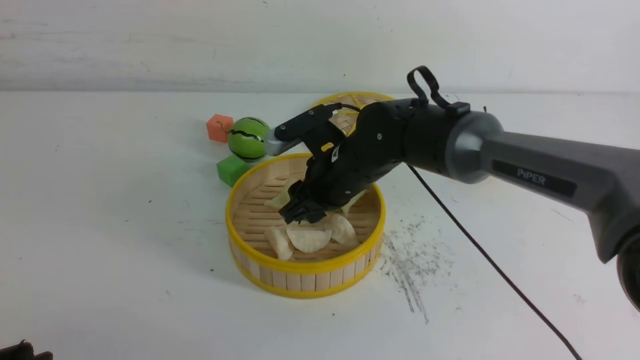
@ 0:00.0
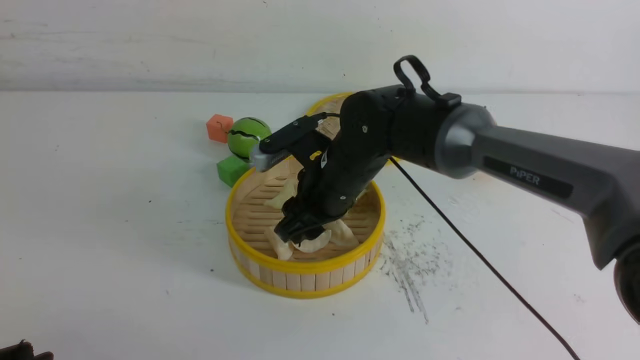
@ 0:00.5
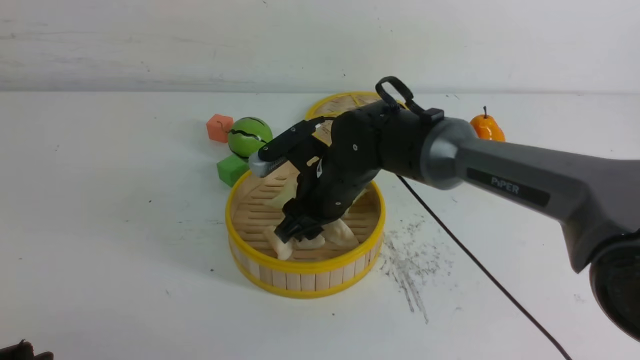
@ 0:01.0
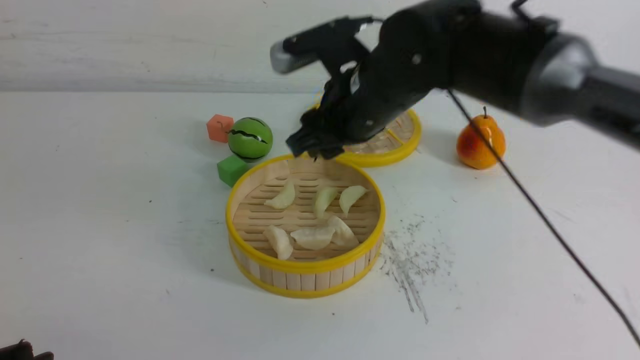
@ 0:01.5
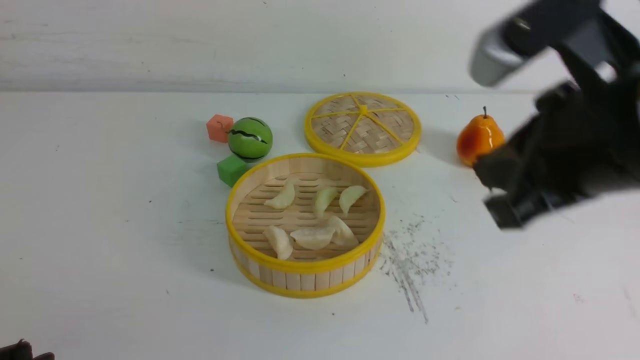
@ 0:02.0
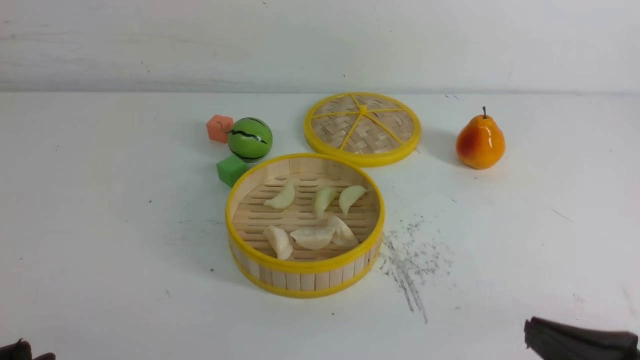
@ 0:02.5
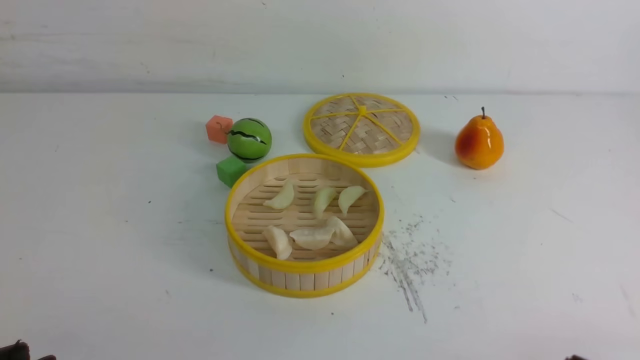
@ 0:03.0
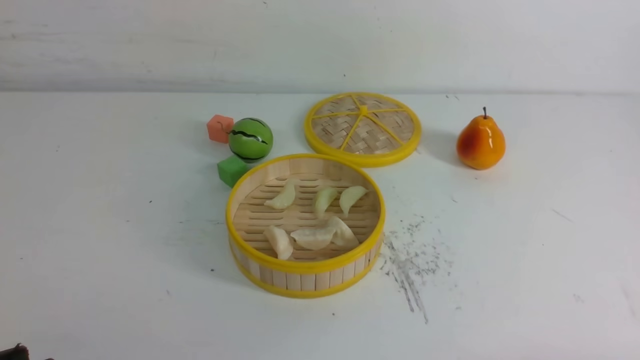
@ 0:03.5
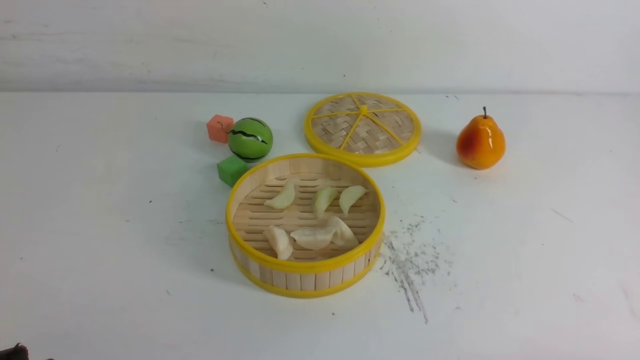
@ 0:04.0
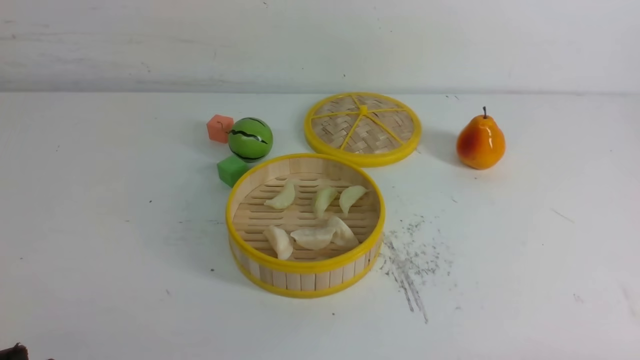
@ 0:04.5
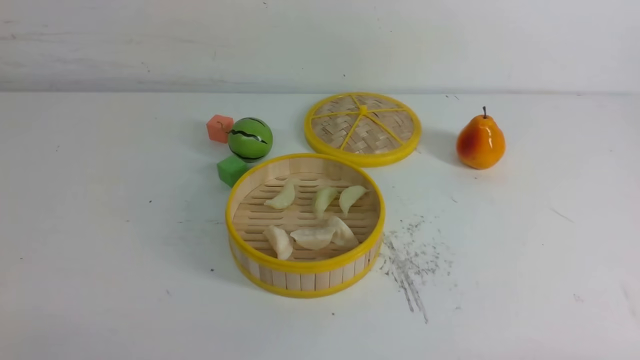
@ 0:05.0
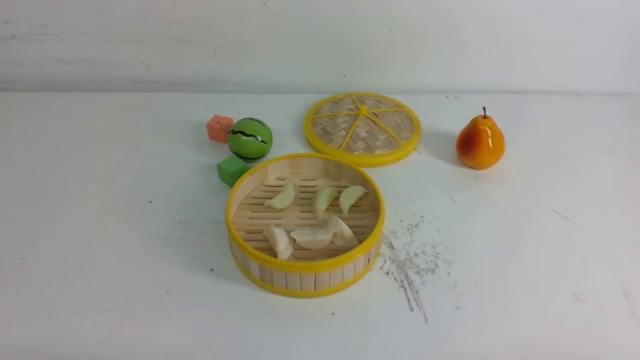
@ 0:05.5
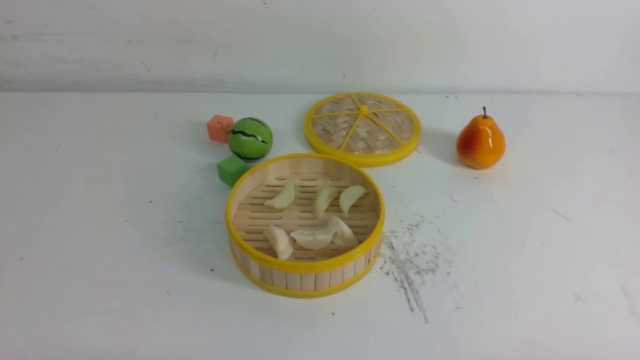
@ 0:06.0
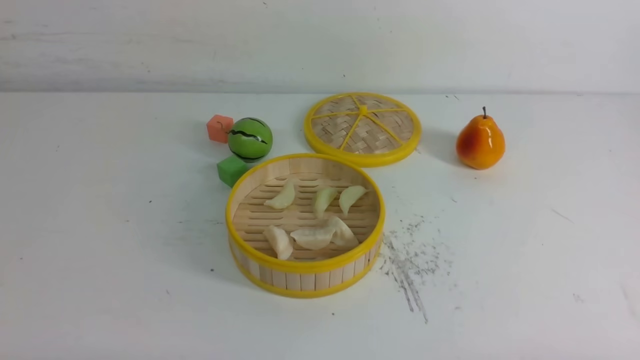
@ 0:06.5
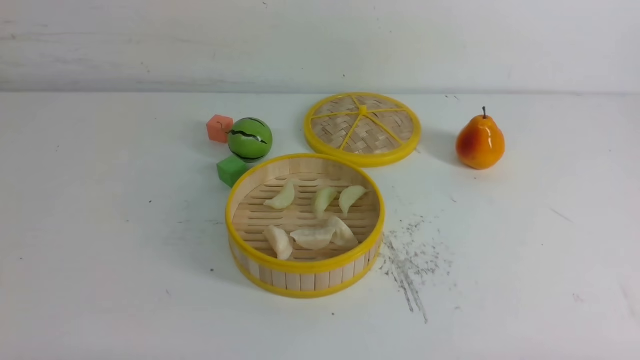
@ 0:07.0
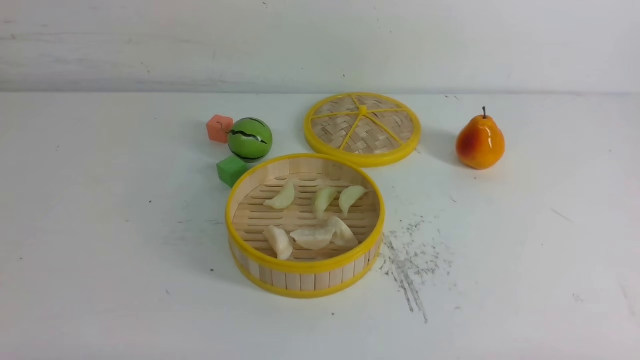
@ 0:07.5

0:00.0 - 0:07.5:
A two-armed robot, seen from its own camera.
Task of the whole recording: put the dumplings into the steamer on the white table.
0:00.0 - 0:02.0: The right gripper heads backward, upward and to the right, covering approximately 30 cm, and closes up.
0:02.0 - 0:04.0: The right gripper moves downward, backward and to the right, about 30 cm.
